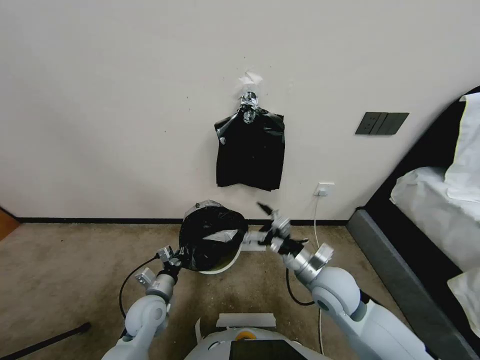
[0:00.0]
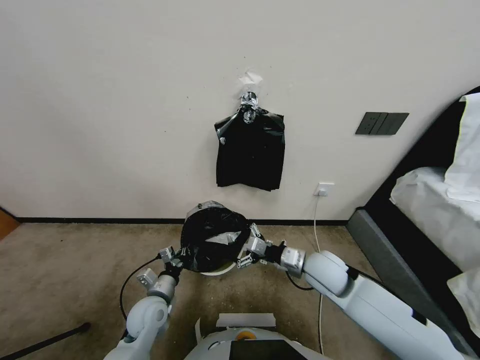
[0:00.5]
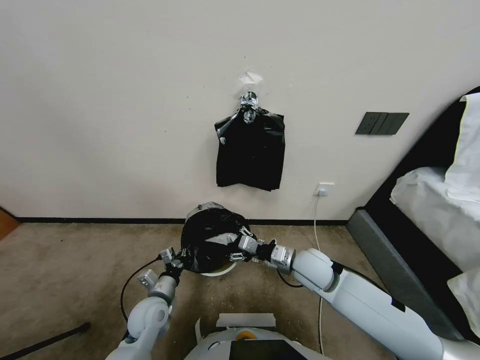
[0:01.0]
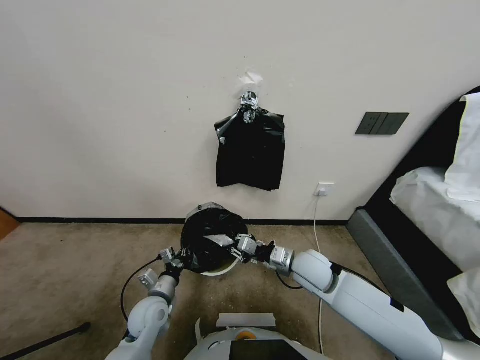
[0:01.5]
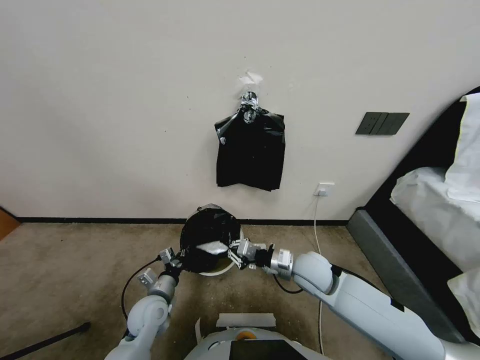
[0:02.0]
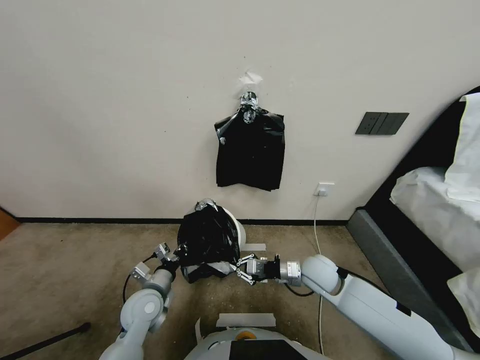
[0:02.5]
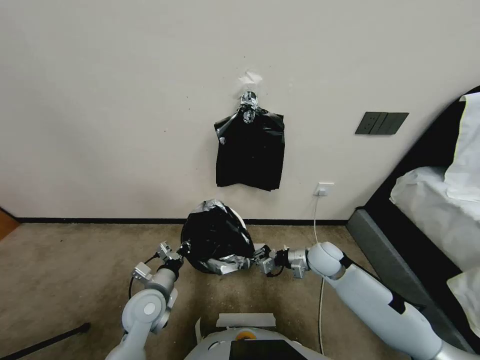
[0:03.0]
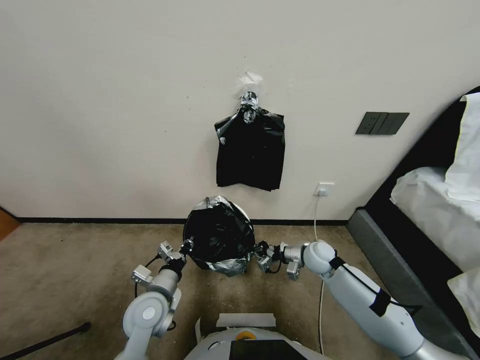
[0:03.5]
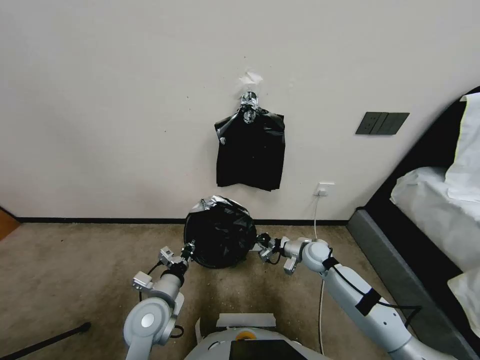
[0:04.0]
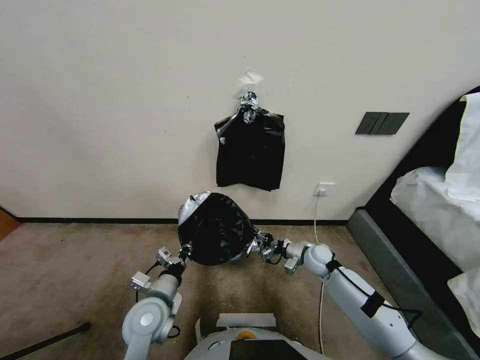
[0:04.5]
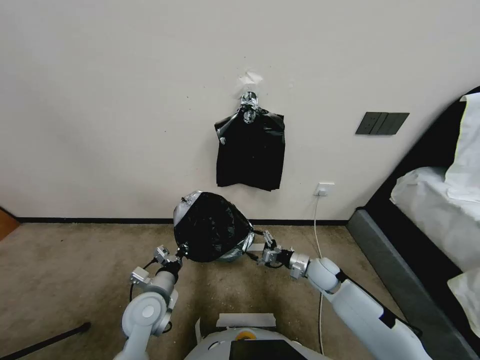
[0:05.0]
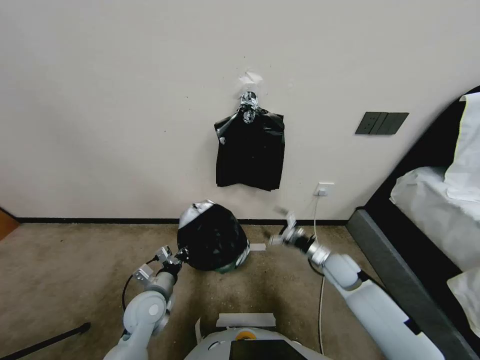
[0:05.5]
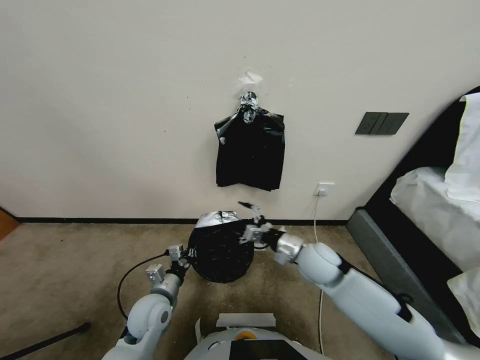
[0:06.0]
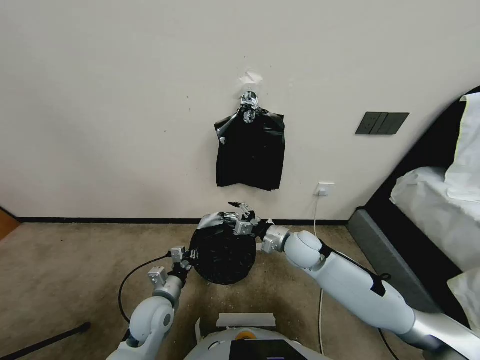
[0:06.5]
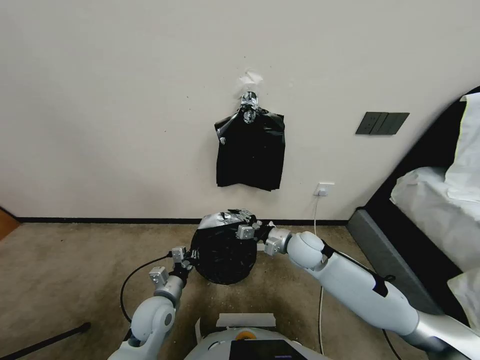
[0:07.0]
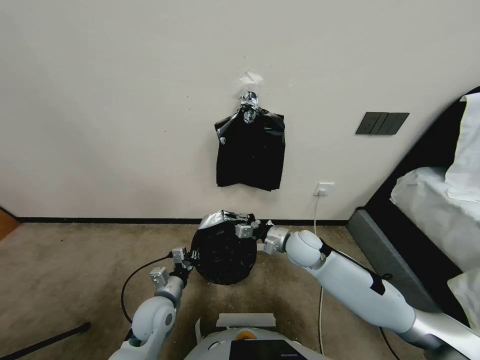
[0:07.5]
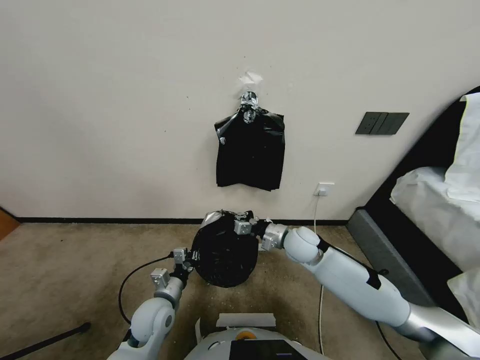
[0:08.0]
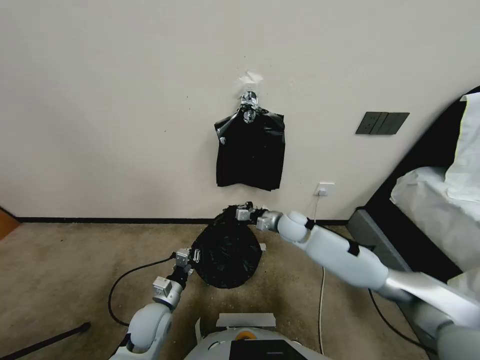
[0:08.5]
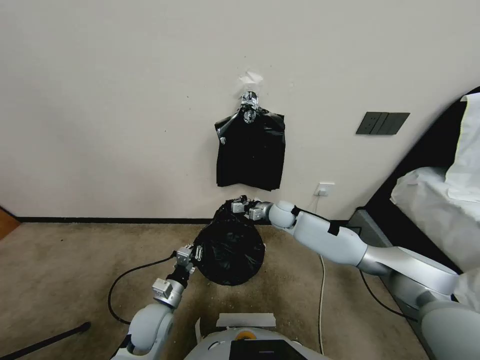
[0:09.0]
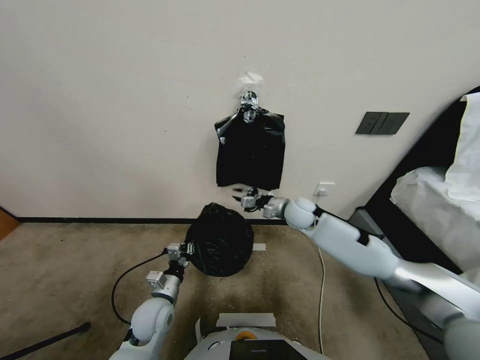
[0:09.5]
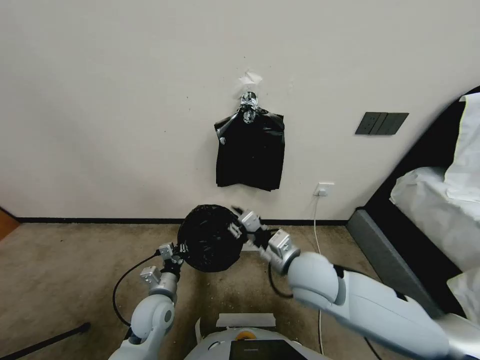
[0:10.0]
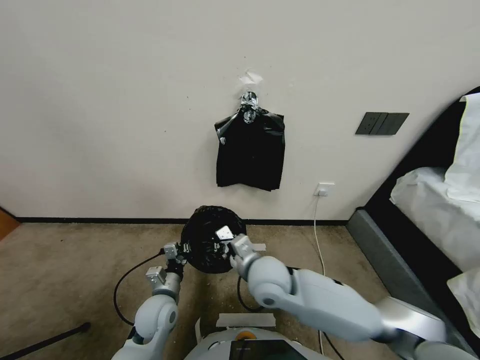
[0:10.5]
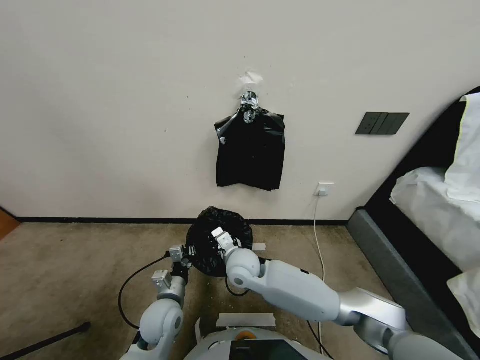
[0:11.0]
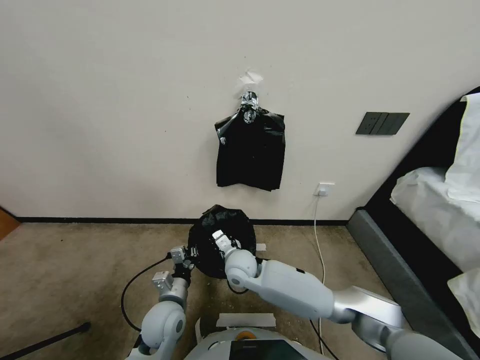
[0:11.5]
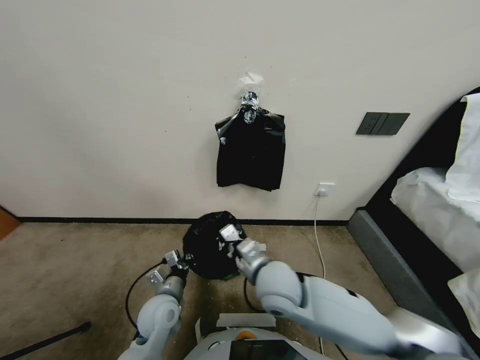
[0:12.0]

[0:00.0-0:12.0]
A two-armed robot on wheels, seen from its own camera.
Task of the whole recording: Place a trash bag onto the trash bin.
0:00.0 to 0:02.0: The right gripper ends up some 5 cm from where it was, and closes its fingers.
0:02.0 to 0:04.0: The right gripper travels forward, downward and to the right by approximately 15 cm. Meanwhile the left gripper shifts some 5 cm upward.
0:04.0 to 0:06.0: The left gripper moves roughly 5 cm; the right gripper heads upward, to the left and backward, covering some 15 cm, and opens up.
0:06.0 to 0:08.0: The right gripper shifts roughly 5 cm forward, and closes.
0:08.0 to 0:10.0: The right gripper shifts approximately 15 cm backward and upward.
0:10.0 to 0:12.0: The right gripper moves approximately 15 cm to the left and comes back.

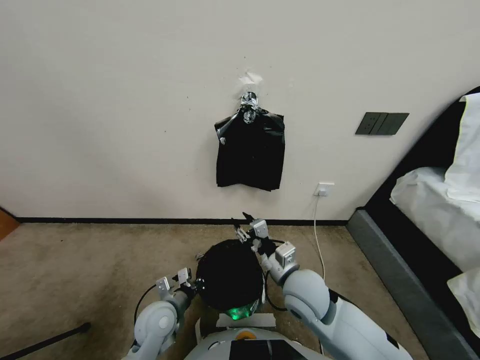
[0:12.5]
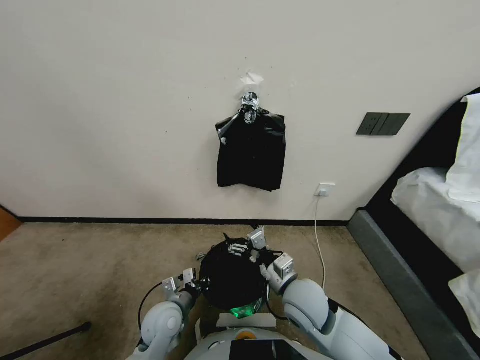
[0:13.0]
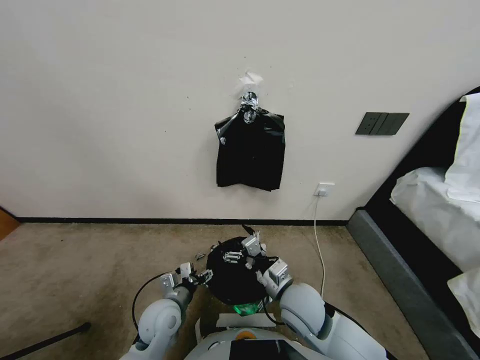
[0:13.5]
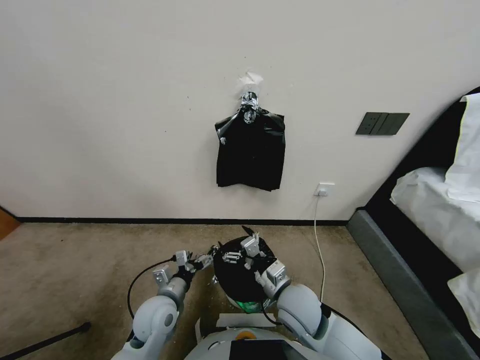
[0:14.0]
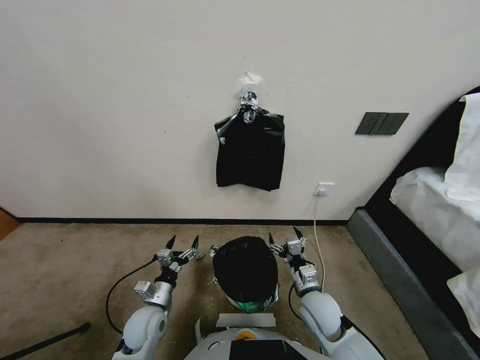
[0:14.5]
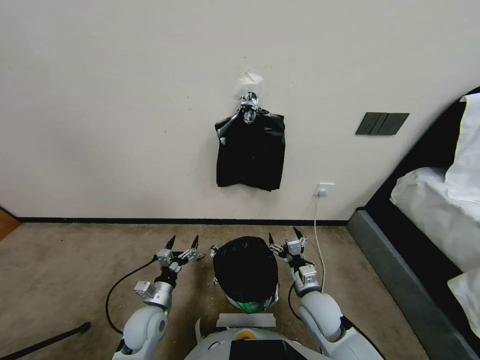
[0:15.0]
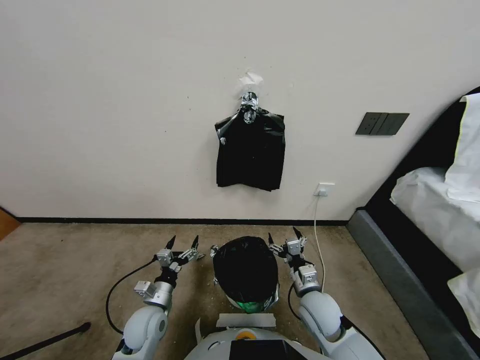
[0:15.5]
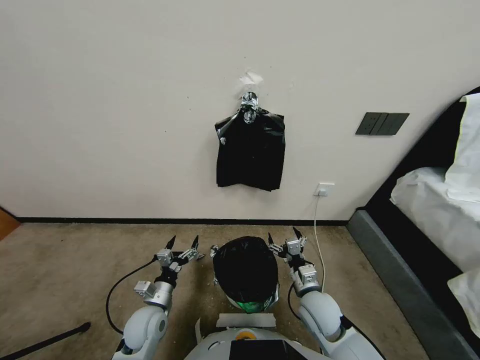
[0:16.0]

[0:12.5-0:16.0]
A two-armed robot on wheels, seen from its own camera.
Task of the whole recording: Place a trash bag onto the trash bin.
0:12.5 to 0:14.5: The right gripper shifts about 10 cm downward and to the right, and opens; the left gripper shifts by about 5 cm, and opens.
0:14.5 to 0:16.0: Neither gripper changes place.
